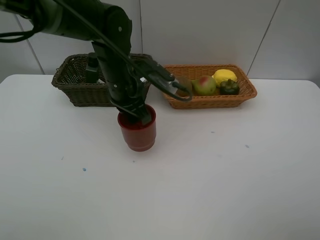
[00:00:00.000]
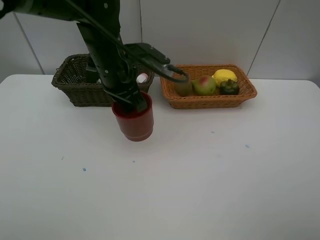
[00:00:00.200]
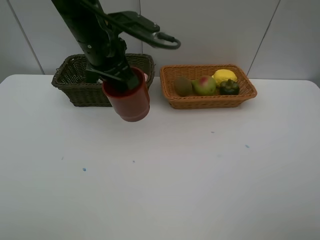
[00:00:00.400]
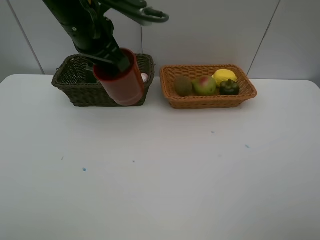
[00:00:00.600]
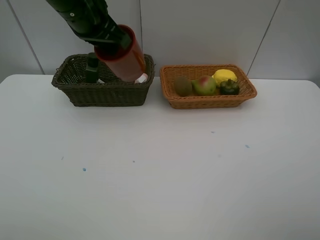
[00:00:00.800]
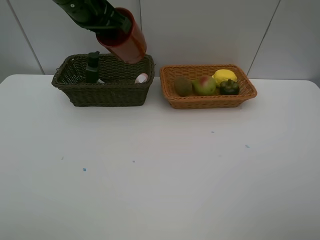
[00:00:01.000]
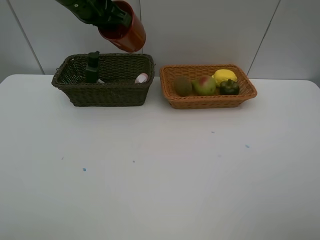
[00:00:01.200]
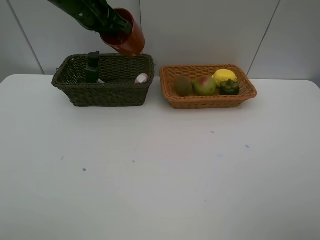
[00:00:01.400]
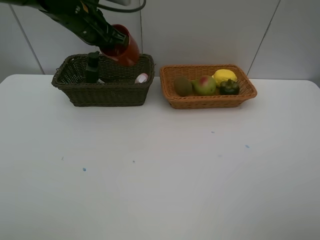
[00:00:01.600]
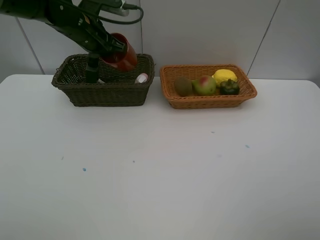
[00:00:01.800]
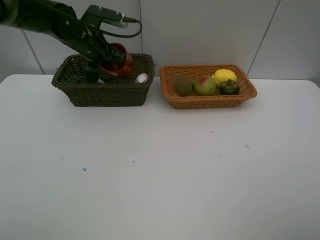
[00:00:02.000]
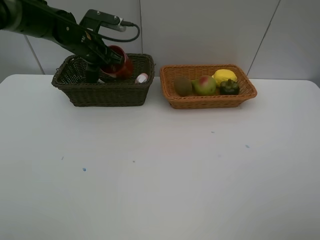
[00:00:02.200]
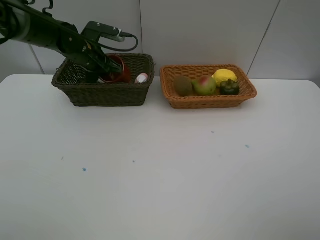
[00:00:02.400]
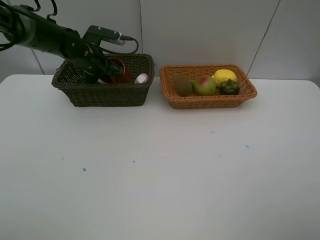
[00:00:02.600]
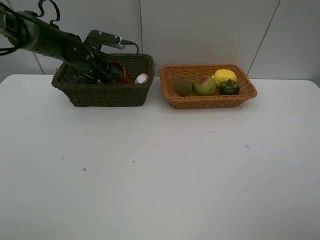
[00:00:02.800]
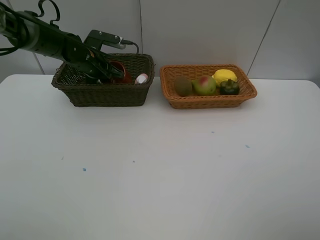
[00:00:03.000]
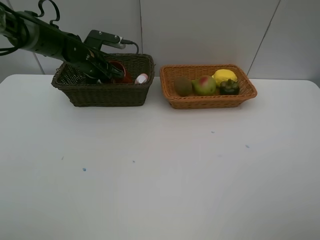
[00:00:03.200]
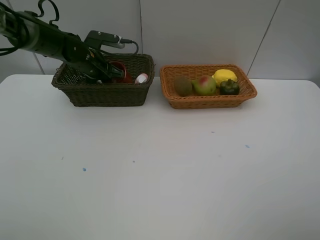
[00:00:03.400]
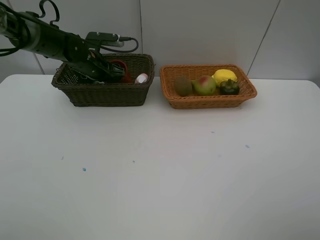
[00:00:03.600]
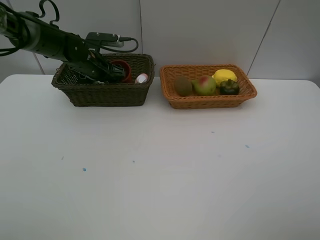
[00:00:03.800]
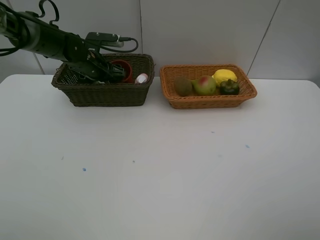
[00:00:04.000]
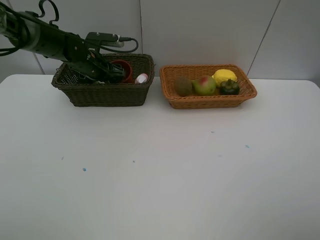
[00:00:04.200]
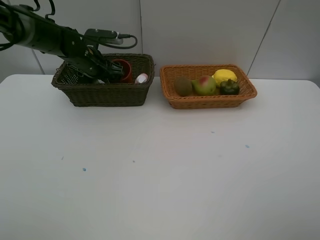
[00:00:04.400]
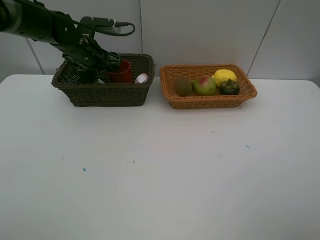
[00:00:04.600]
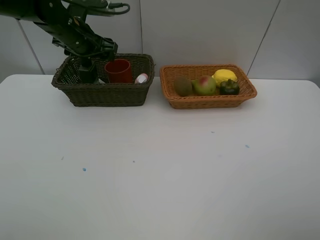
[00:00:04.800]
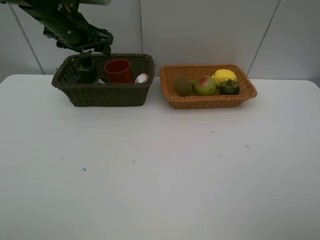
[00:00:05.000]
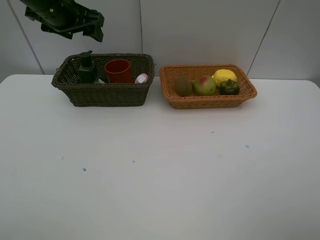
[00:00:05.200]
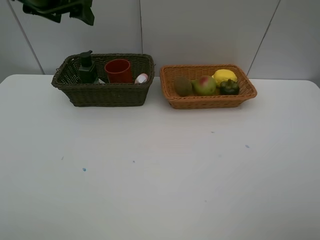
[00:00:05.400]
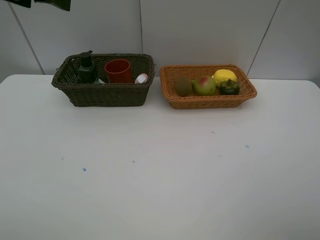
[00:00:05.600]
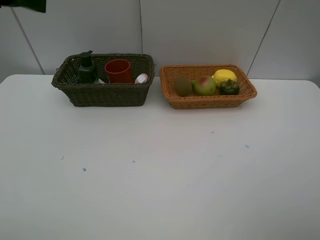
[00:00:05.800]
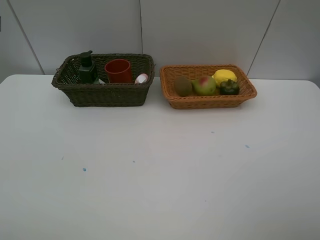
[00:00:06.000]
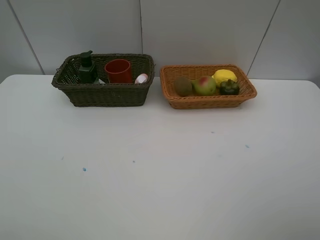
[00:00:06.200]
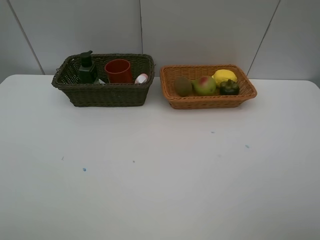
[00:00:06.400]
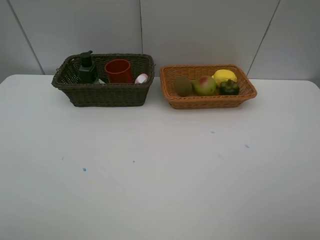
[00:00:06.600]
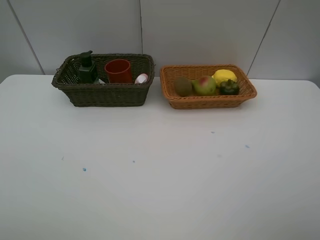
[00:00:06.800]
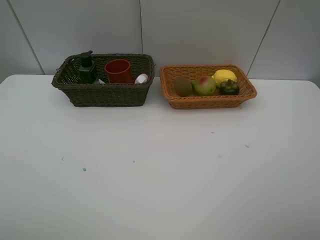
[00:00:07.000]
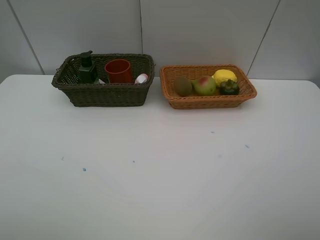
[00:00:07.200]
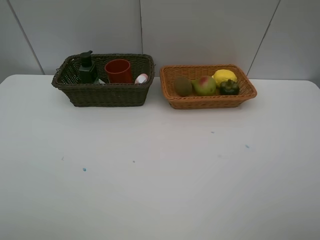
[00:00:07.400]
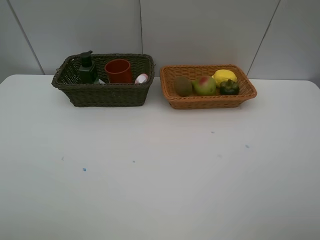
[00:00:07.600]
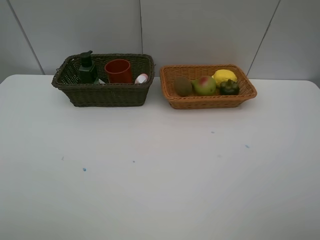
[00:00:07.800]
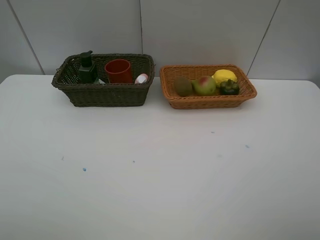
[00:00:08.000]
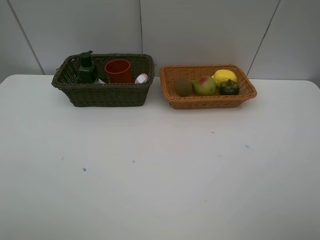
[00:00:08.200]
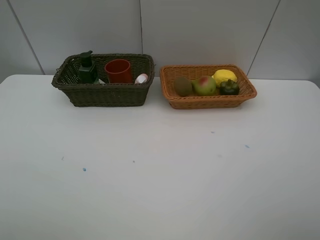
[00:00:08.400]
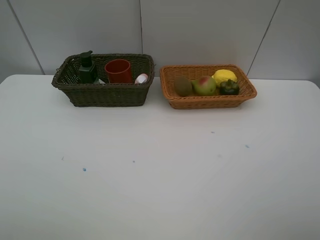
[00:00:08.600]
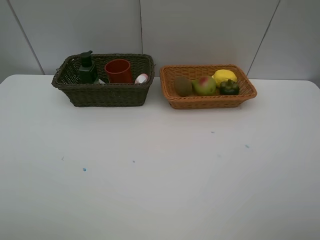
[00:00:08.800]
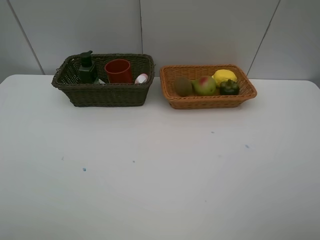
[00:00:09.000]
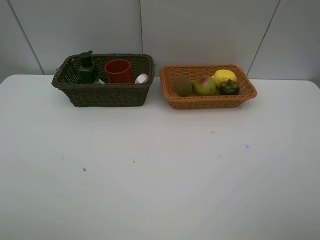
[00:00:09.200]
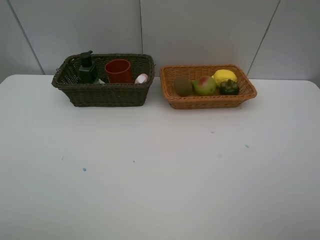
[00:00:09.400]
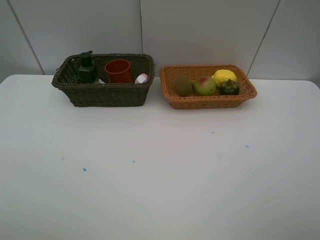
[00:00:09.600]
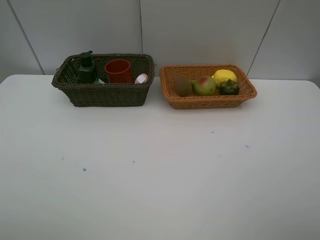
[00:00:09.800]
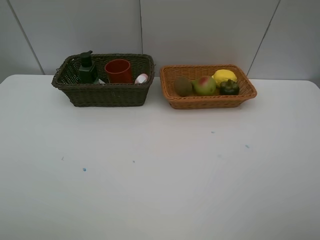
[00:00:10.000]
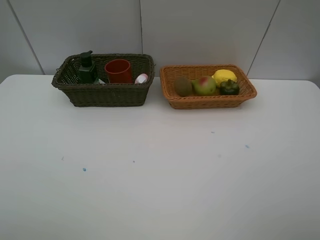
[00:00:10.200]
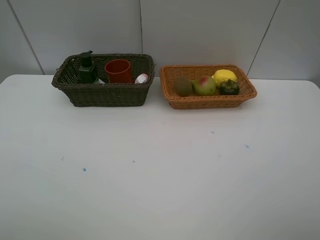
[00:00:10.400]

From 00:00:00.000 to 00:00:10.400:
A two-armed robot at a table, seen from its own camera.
Task of the whole recording: Place multiple objects separately in different baskets.
Step, from 00:00:00.000 to 00:00:04.800: Place the dark brown cup in the dark basket with left gripper.
From 00:00:00.000 to 00:00:01.400: The left gripper heads upward, to the left and forward, covering about 15 cm.
From 00:00:01.400 to 00:00:03.000: The left gripper shifts about 15 cm downward and forward.
From 00:00:03.000 to 00:00:04.400: The left gripper opens its fingers.
From 00:00:04.400 to 00:00:06.000: The left gripper heads backward and upward, covering about 40 cm.
From 00:00:07.400 to 00:00:10.400: Both grippers stay about where they are.

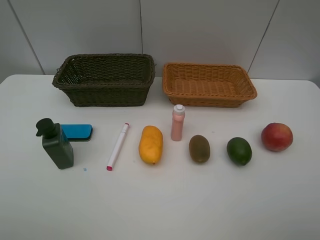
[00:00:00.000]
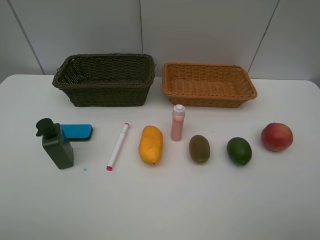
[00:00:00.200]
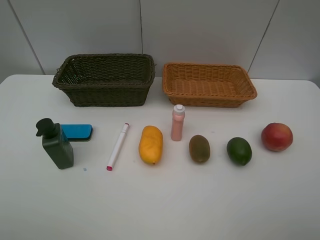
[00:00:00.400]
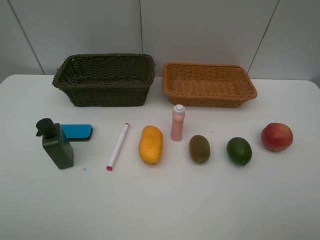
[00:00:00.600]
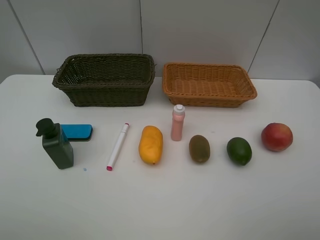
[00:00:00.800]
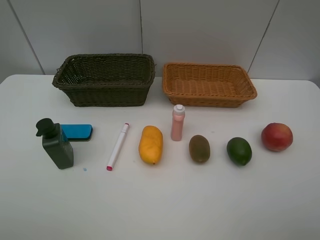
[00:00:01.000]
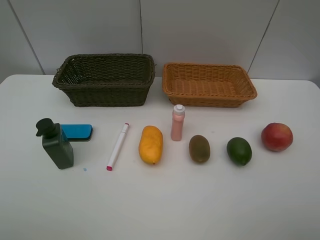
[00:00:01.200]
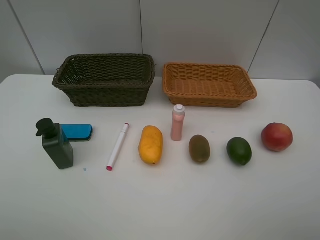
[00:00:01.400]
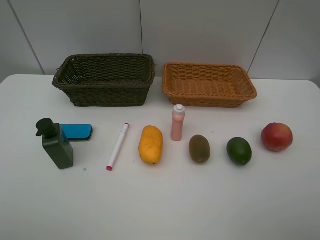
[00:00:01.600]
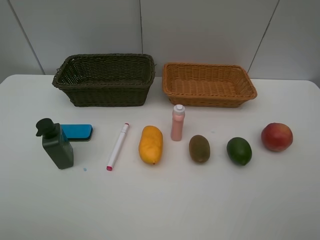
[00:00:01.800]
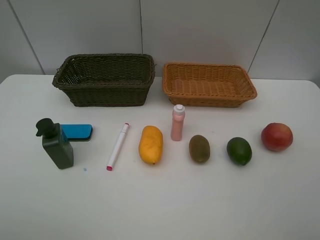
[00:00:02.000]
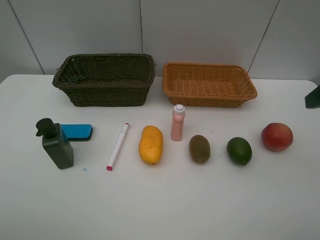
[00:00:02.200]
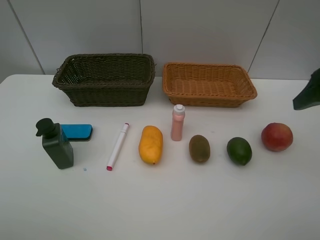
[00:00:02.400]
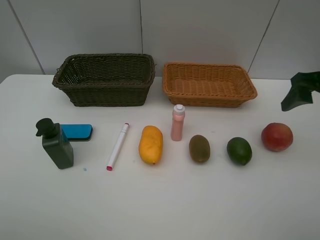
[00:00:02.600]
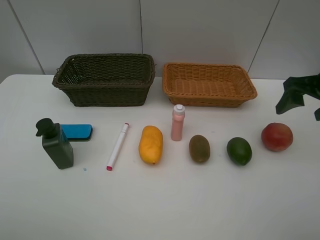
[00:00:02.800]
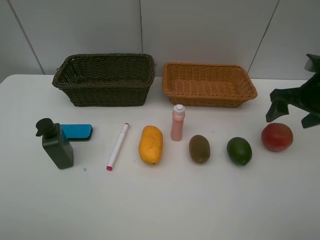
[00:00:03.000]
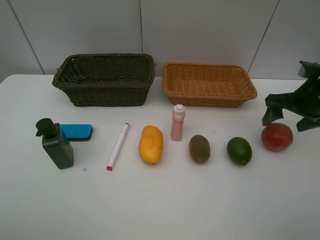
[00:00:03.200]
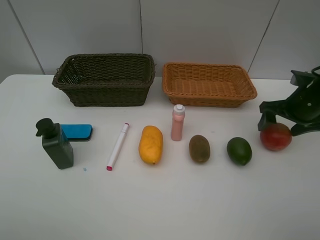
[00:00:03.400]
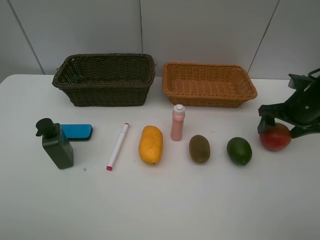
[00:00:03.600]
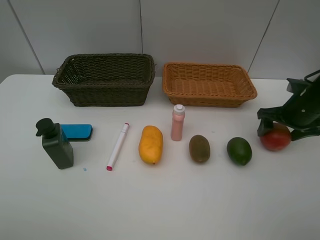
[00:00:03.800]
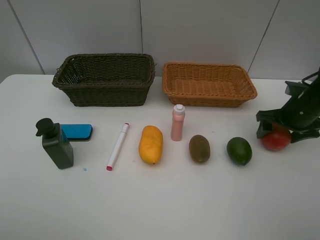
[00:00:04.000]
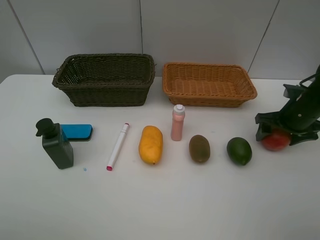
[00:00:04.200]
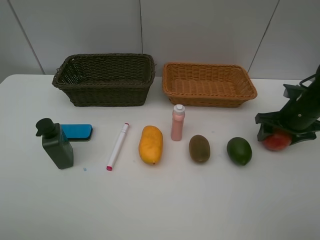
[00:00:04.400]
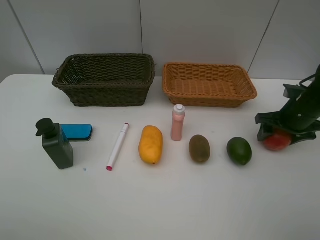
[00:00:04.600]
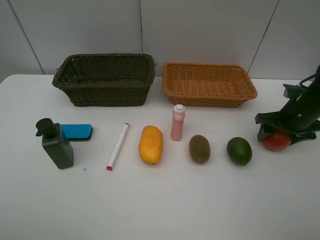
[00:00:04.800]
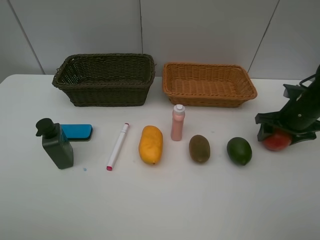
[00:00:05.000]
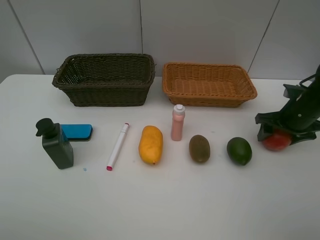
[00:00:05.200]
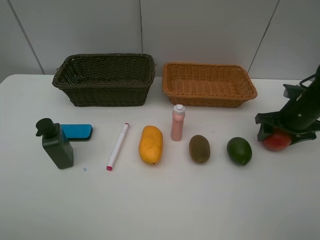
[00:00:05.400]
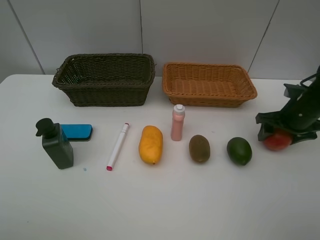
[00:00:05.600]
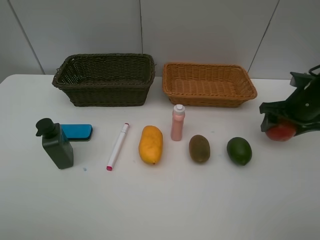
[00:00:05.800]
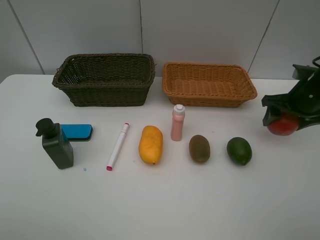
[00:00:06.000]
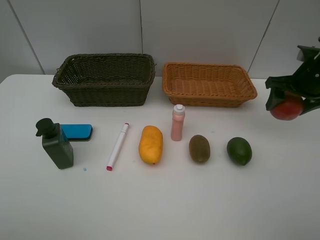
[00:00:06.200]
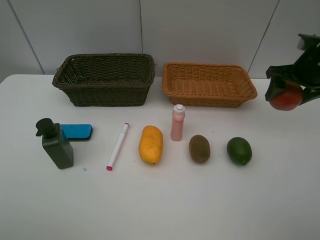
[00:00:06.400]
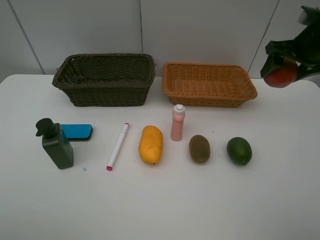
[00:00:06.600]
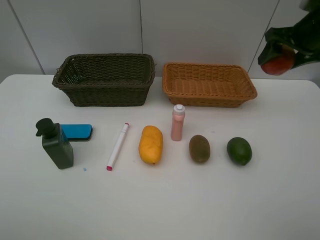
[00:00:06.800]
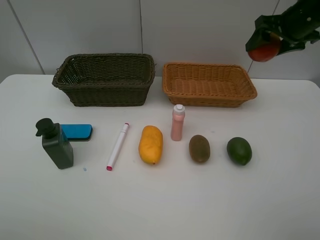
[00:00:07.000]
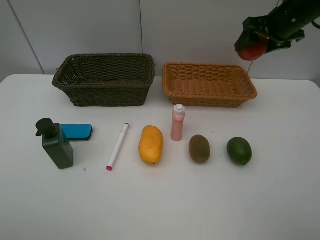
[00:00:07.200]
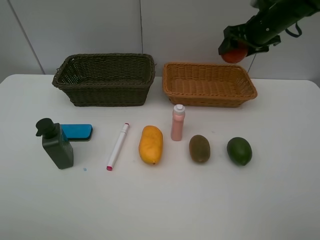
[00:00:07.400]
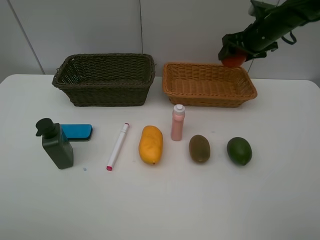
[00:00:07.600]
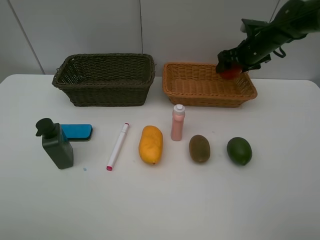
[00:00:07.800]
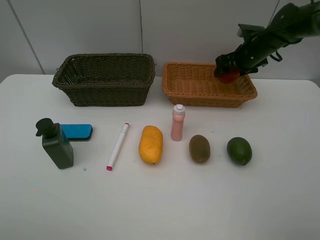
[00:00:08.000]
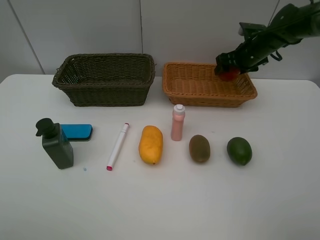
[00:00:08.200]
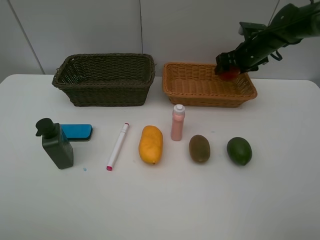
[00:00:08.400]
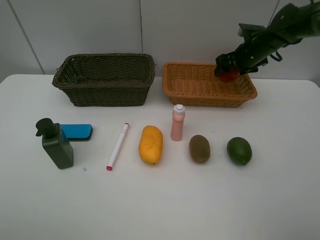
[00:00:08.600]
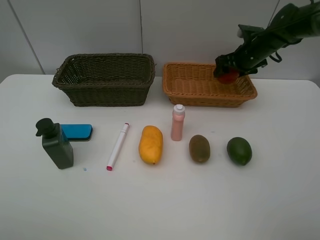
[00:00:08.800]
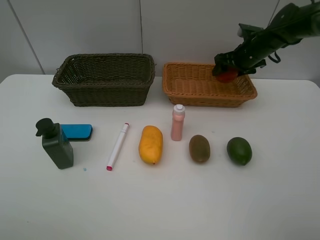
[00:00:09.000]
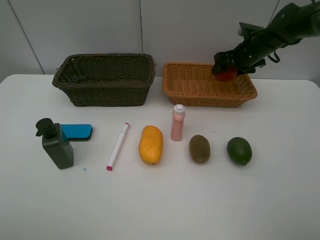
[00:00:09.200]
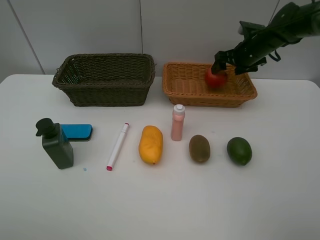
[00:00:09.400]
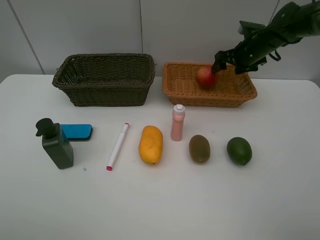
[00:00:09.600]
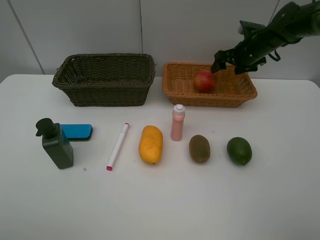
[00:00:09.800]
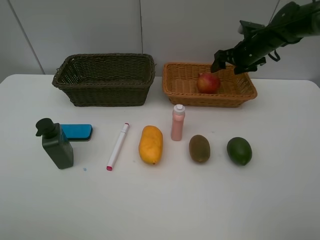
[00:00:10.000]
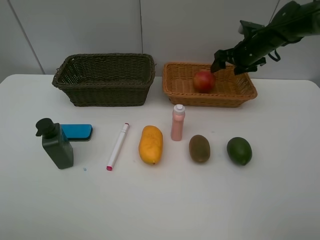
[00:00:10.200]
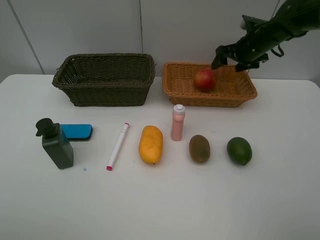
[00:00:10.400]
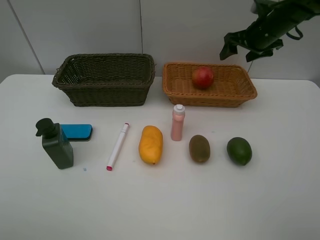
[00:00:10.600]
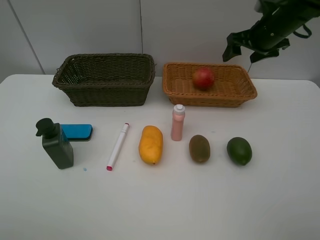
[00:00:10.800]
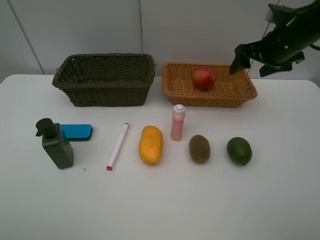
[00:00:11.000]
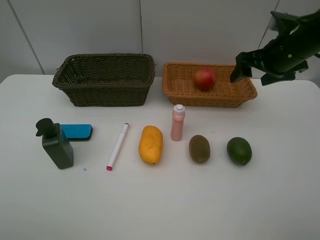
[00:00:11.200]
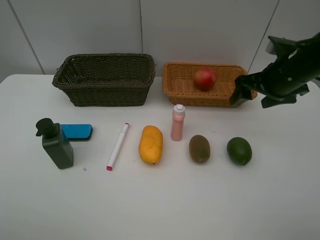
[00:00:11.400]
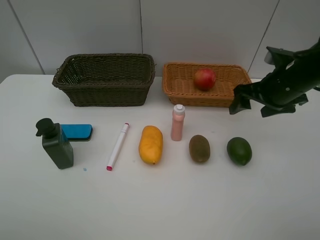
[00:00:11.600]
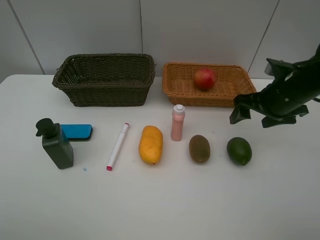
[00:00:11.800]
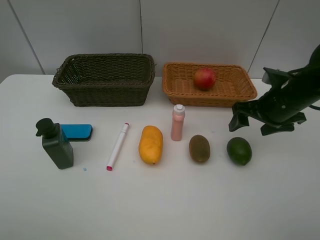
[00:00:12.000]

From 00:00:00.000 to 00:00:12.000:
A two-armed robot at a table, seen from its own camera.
Task of the whole recording: Place multiple objects separately in different baskets.
Step, from 00:00:00.000 to 00:00:06.000: Pick up the pomegranate with right gripper.
Step, from 00:00:06.200 to 00:00:09.800: Place the pomegranate in the light basket with right gripper.
From 00:00:01.600 to 00:00:03.000: The right gripper is displaced forward by some 25 cm.
From 00:00:03.000 to 00:00:04.400: The right gripper moves downward, roughly 10 cm.
From 00:00:04.400 to 00:00:06.000: The right gripper goes some 5 cm upward.
From 00:00:06.000 to 00:00:07.600: The right gripper moves forward and to the left, some 15 cm.
From 00:00:07.600 to 00:00:10.400: The grippers make only small movements.
From 00:00:10.400 to 00:00:12.000: The right gripper shifts roughly 20 cm backward.
